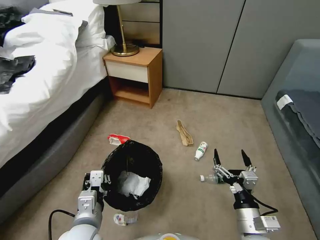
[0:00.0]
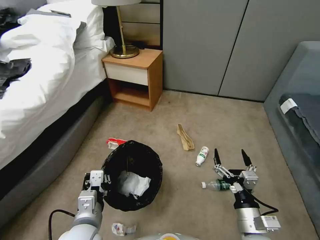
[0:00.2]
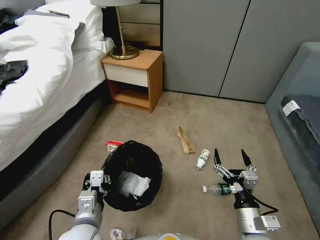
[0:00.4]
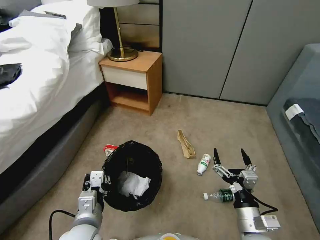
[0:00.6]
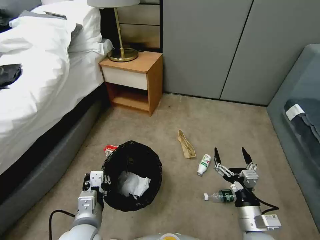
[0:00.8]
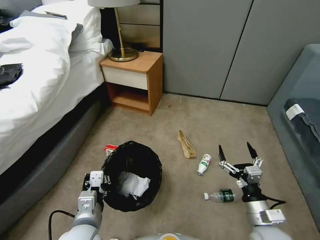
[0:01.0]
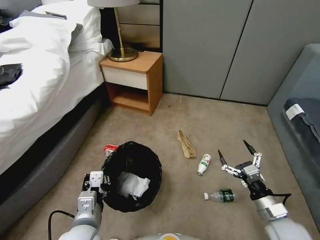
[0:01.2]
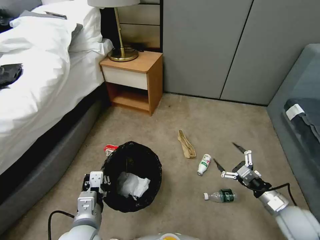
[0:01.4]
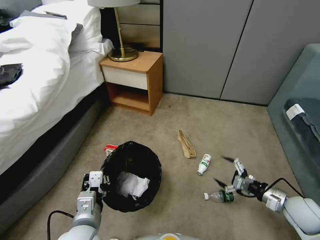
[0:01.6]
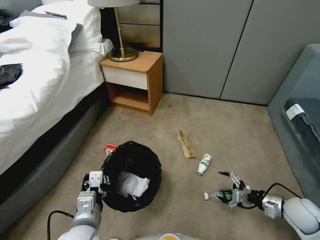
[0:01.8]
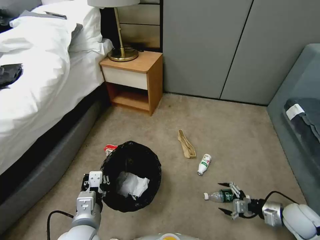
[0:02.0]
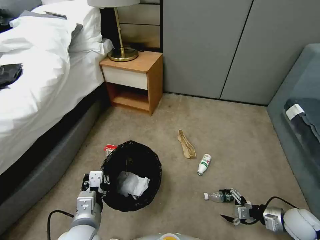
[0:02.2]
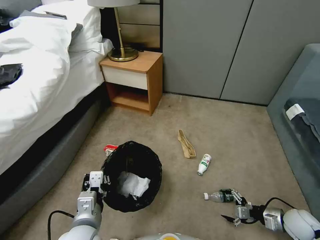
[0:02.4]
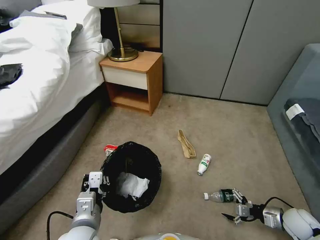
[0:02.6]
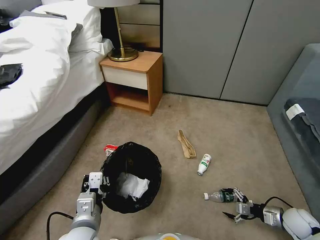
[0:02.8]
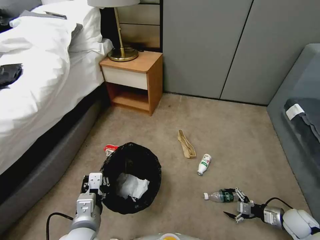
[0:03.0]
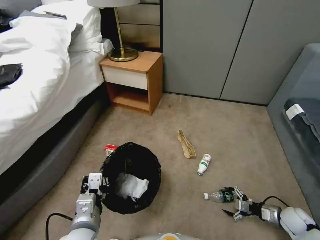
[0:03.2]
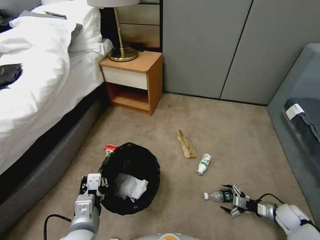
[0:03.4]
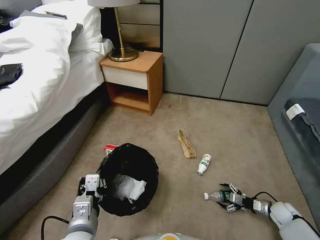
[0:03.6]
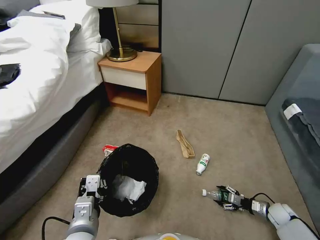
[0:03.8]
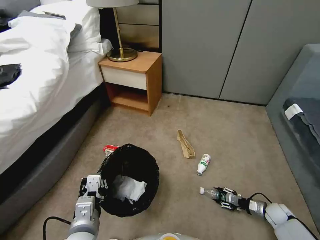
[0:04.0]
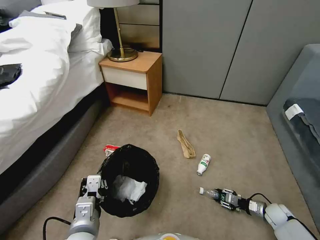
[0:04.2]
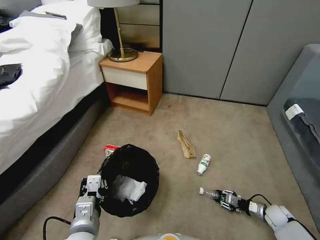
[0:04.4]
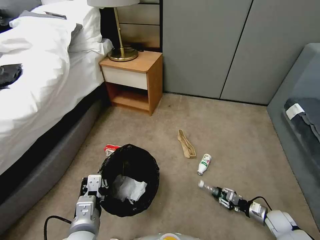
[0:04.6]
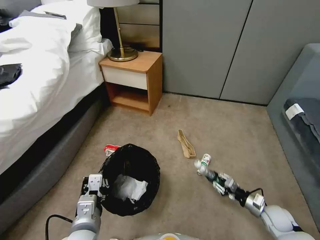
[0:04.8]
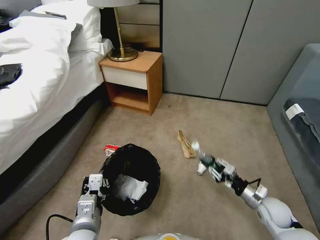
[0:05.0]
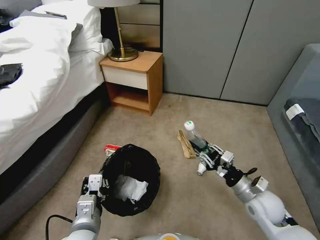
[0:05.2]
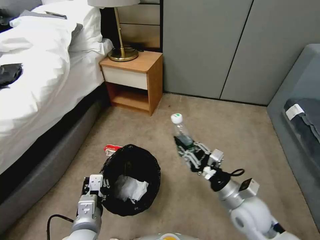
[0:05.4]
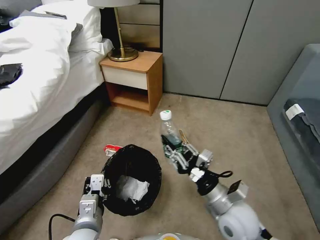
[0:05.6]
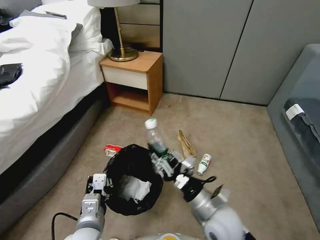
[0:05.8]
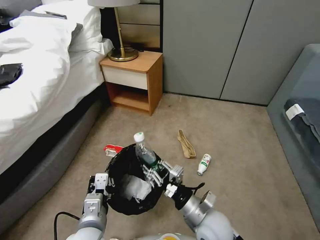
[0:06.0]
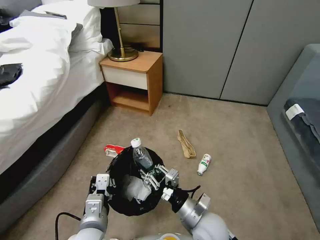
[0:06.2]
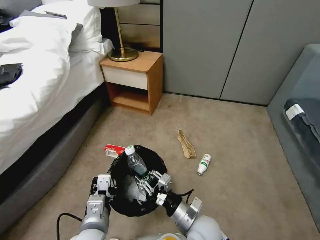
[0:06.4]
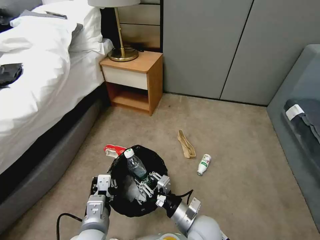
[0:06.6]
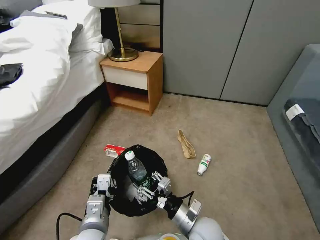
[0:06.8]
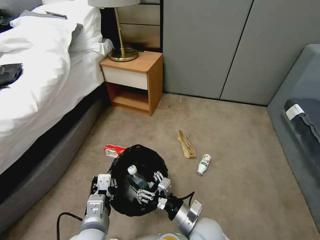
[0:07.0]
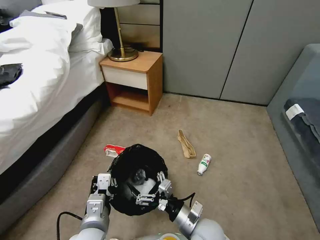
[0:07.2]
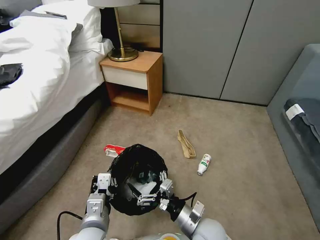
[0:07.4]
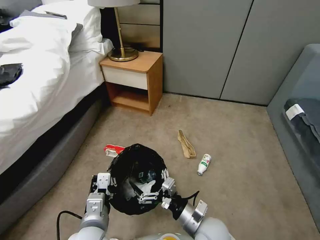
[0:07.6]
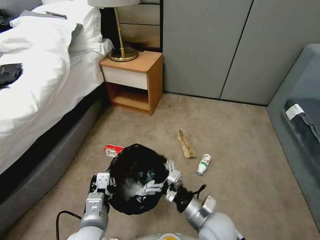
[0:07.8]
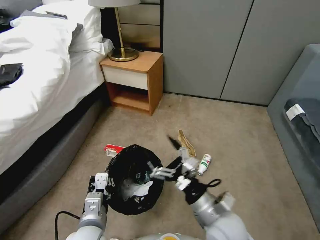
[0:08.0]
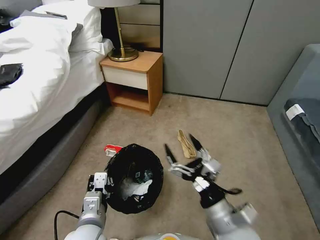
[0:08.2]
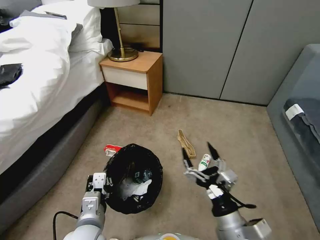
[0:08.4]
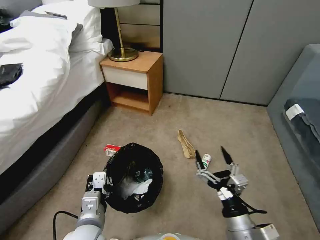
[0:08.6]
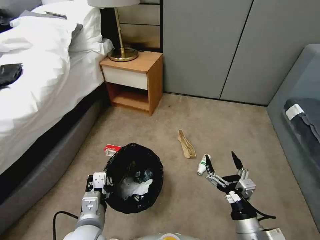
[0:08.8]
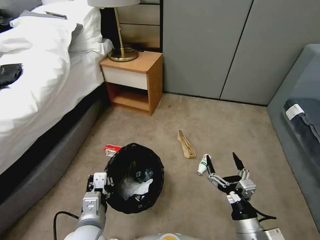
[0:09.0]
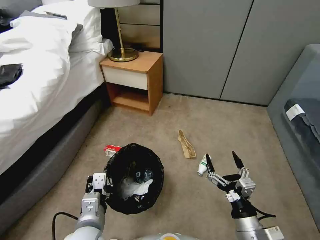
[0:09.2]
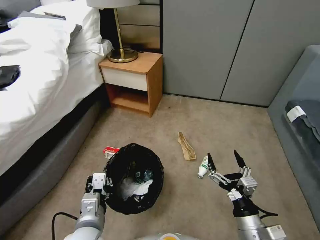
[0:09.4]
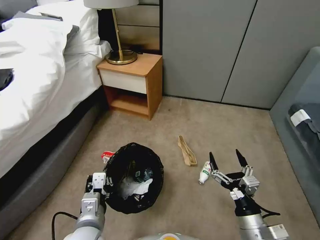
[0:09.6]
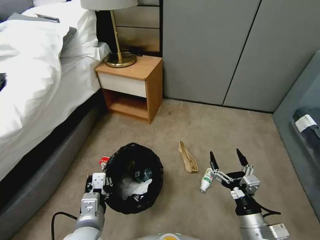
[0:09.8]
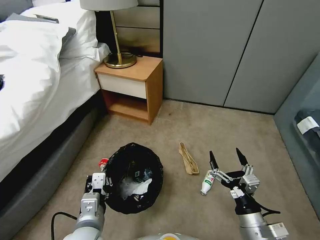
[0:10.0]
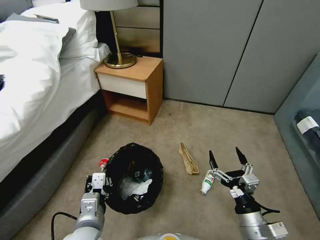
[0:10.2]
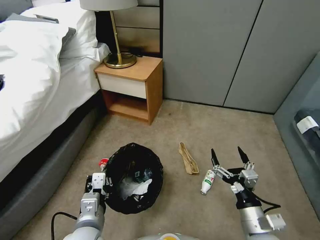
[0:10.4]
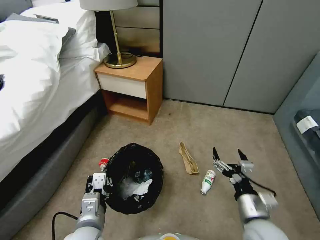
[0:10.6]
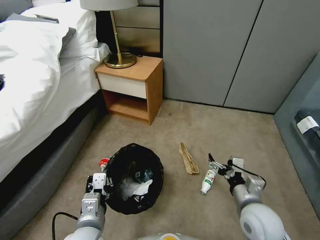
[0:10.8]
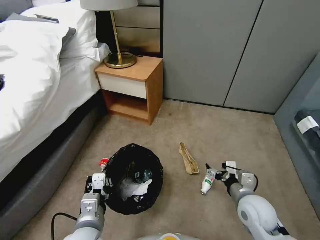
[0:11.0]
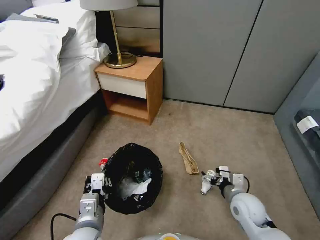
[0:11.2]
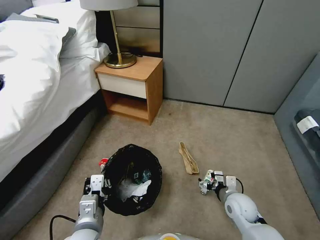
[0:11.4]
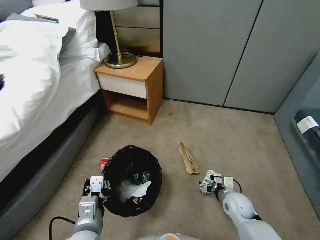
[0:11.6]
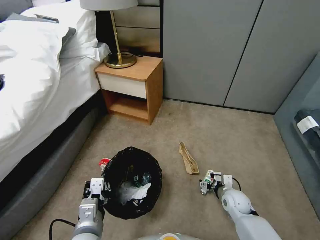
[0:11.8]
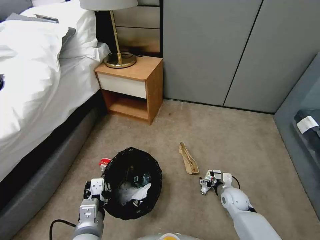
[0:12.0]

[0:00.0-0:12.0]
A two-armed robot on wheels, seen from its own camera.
Task of the whole recording: Pick up the trash bin, then pick up the garbage from the floor and place it into the trash bin.
0:00.0 to 0:01.6: The right gripper shifts roughly 20 cm to the right and forward.
0:01.6 to 0:03.0: The right gripper goes about 15 cm downward and to the right.
0:03.0 to 0:04.4: The right gripper moves downward, about 5 cm, and closes up.
0:04.4 to 0:06.0: The right gripper shifts some 40 cm to the left and upward.
0:06.0 to 0:07.6: The right gripper opens its fingers.
0:07.6 to 0:09.0: The right gripper shifts about 15 cm to the right and backward.
0:10.4 to 0:12.0: The right gripper goes some 25 cm forward and downward.

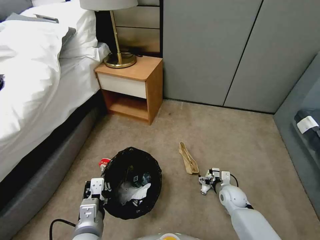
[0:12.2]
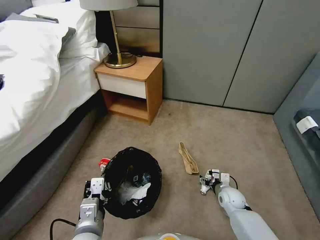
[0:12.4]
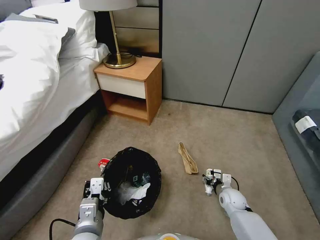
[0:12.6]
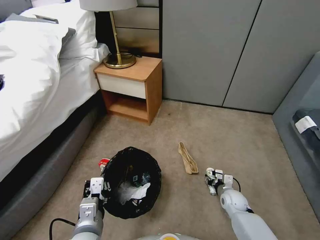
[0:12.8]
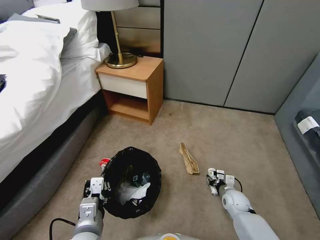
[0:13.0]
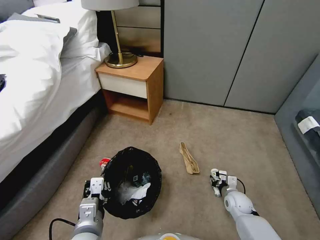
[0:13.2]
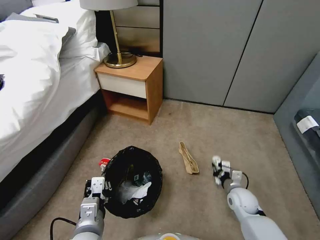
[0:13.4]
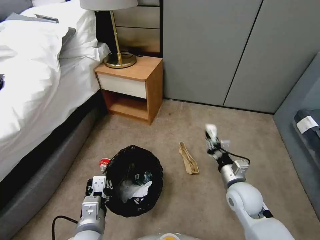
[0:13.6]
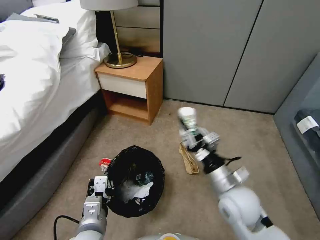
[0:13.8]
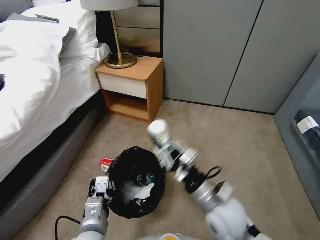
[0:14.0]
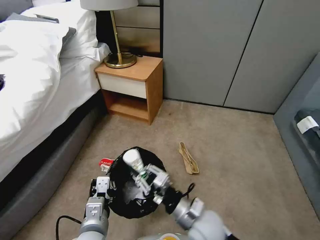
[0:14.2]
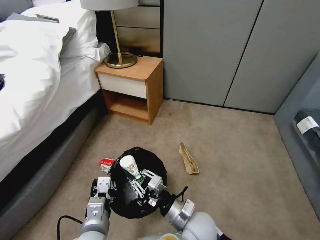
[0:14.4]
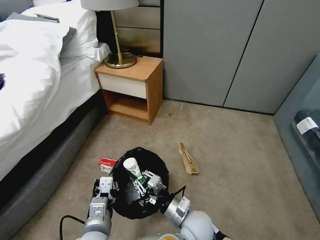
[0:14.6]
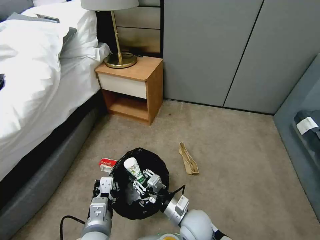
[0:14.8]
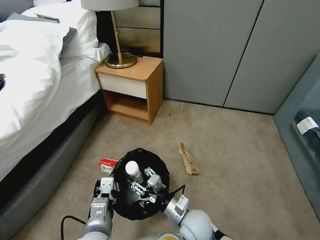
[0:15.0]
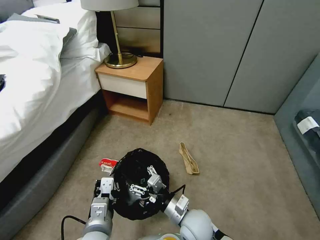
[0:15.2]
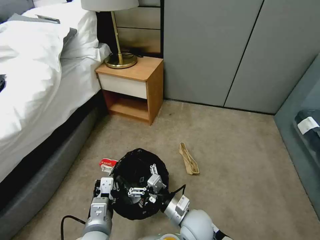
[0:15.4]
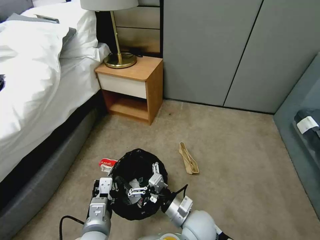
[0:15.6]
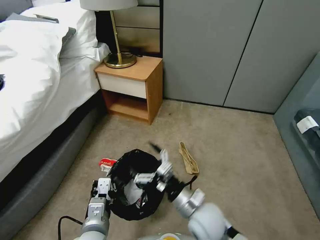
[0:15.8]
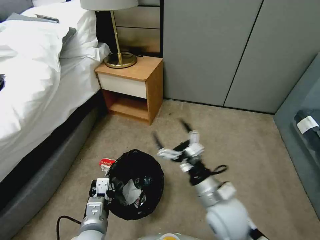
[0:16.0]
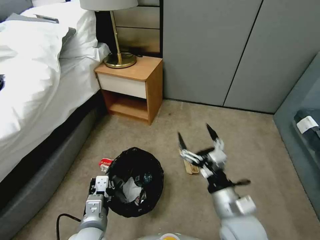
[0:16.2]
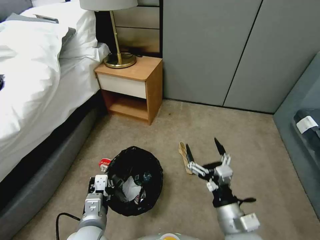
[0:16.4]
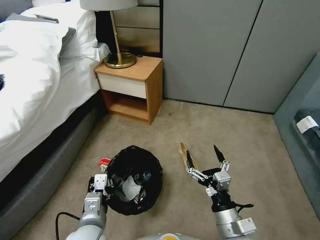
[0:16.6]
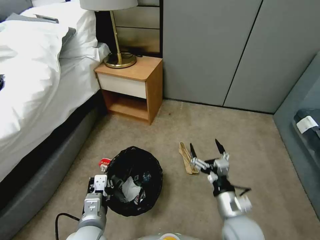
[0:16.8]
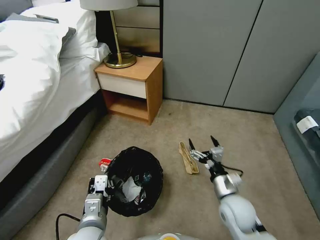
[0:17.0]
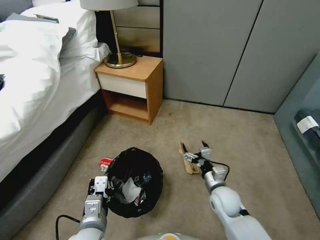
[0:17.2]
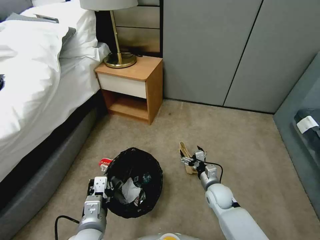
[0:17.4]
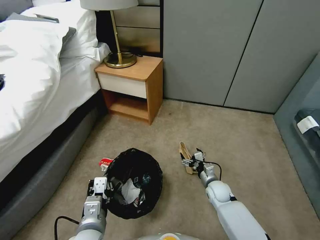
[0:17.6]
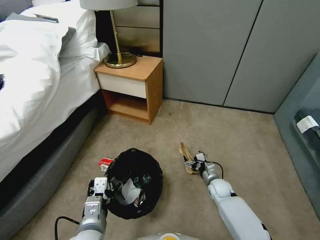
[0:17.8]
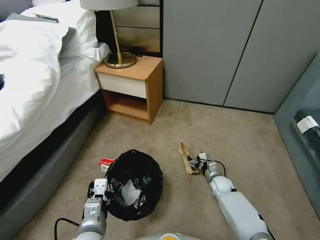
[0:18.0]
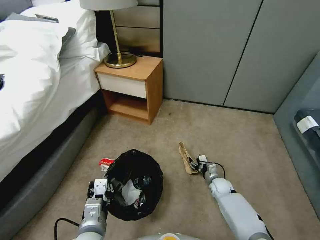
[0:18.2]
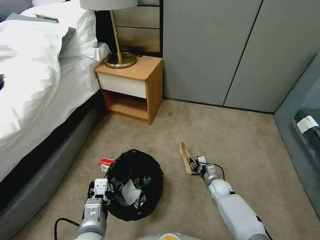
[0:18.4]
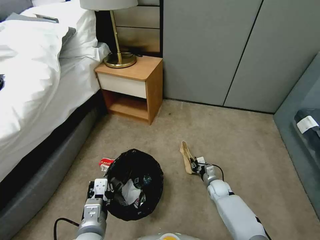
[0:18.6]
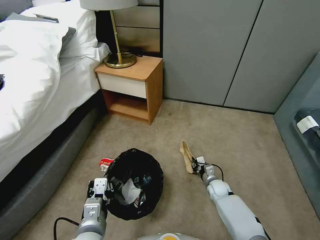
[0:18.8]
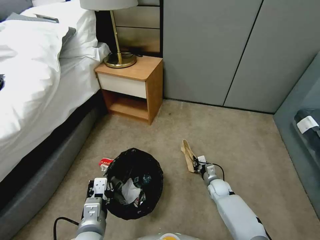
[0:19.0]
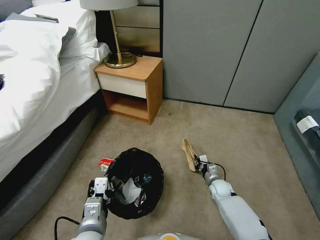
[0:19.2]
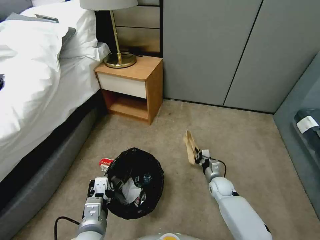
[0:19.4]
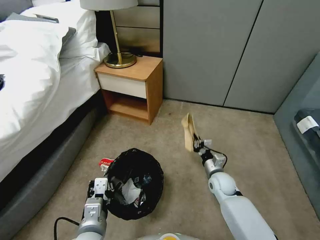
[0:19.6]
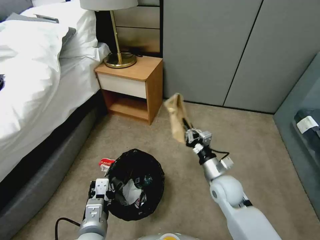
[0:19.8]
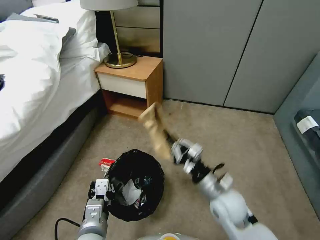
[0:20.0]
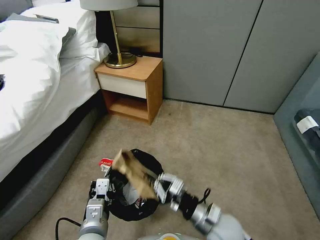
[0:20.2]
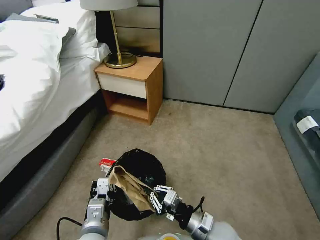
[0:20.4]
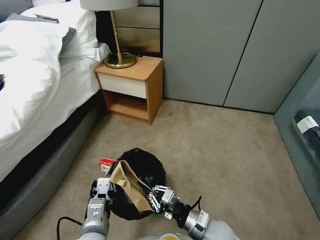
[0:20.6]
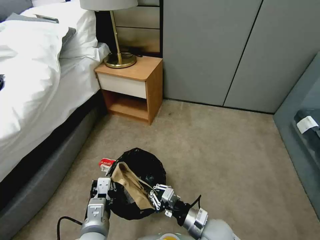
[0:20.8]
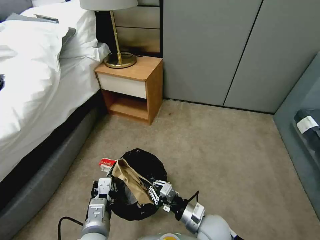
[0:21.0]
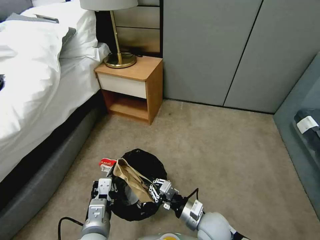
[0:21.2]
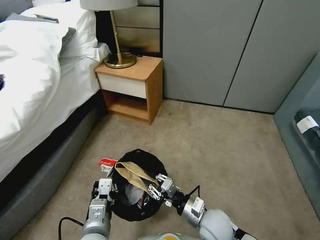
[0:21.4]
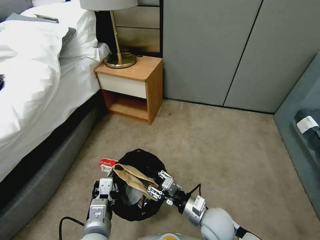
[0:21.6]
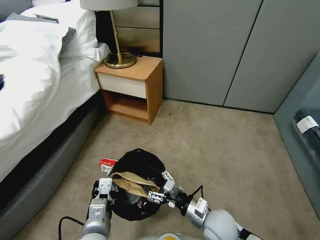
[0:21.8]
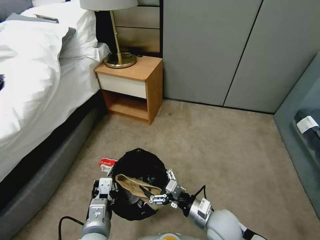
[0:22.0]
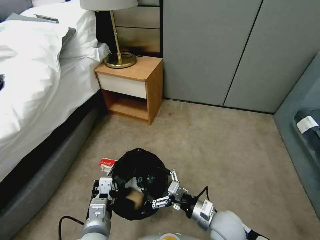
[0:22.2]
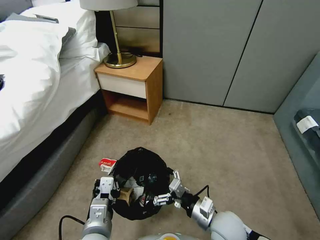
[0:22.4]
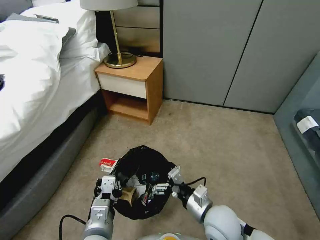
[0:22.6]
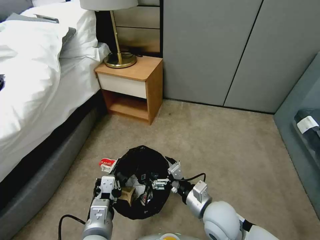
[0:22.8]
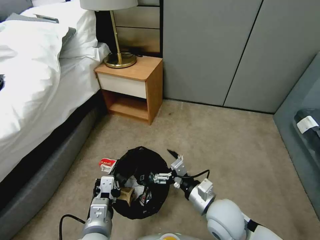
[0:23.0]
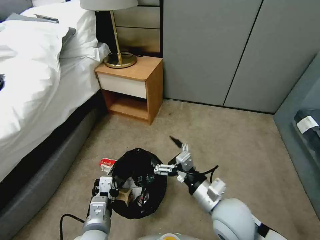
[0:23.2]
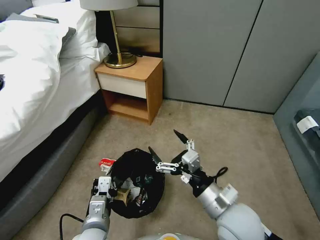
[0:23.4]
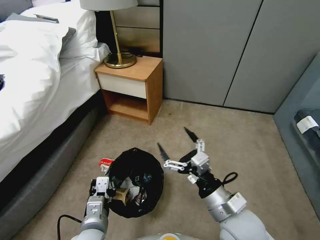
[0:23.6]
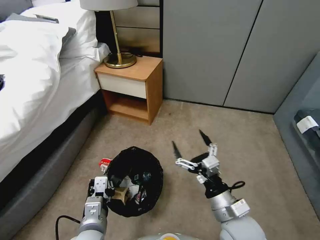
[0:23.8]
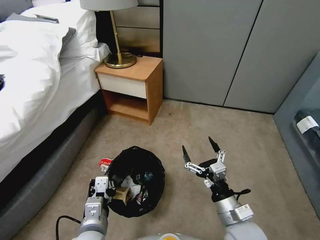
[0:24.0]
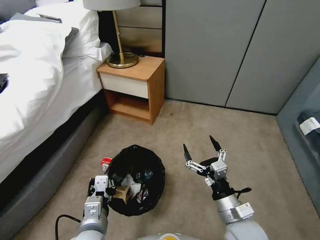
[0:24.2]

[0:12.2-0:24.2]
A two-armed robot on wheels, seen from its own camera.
Task of the whole recording: Pick up the trash bin, then pick up the garbage from the floor and place it into the trash bin.
0:12.2 to 0:13.8: The right gripper goes approximately 20 cm upward, and closes its fingers.
0:13.8 to 0:15.2: The right gripper goes approximately 15 cm to the left and downward, and opens.
0:15.2 to 0:16.6: The right gripper shifts roughly 15 cm to the right, backward and upward.
0:16.6 to 0:18.2: The right gripper shifts some 35 cm forward and downward.
0:18.2 to 0:19.8: The right gripper heads upward, covering some 20 cm, and closes.
0:19.8 to 0:21.2: The right gripper is displaced backward and to the left by roughly 10 cm.
0:21.2 to 0:22.6: The right gripper is displaced upward by some 5 cm, and opens.
0:22.6 to 0:24.2: The right gripper goes upward and returns, about 10 cm each way.
